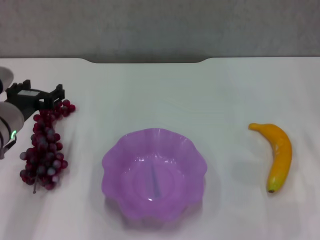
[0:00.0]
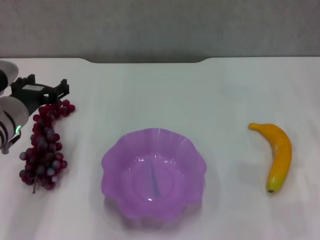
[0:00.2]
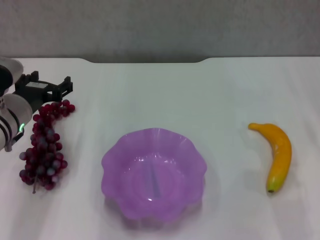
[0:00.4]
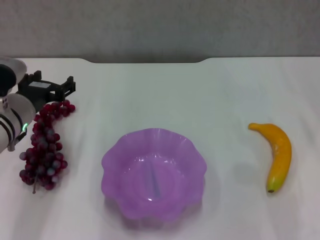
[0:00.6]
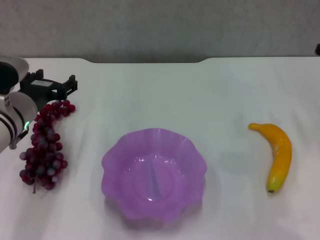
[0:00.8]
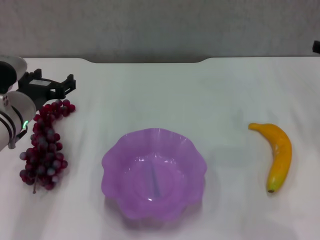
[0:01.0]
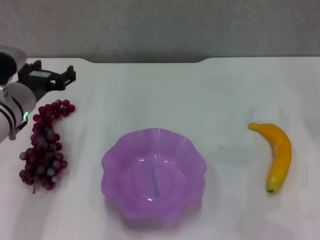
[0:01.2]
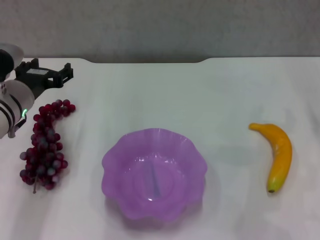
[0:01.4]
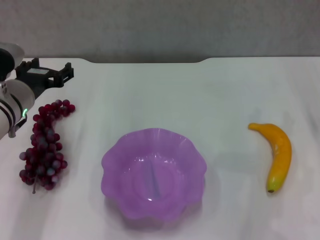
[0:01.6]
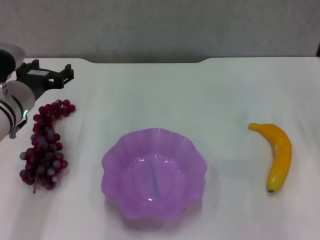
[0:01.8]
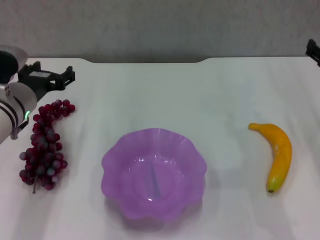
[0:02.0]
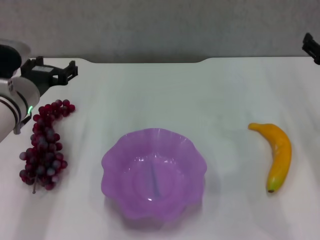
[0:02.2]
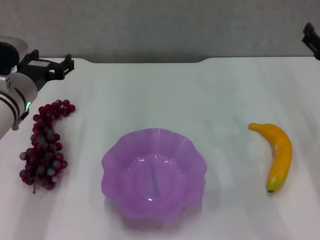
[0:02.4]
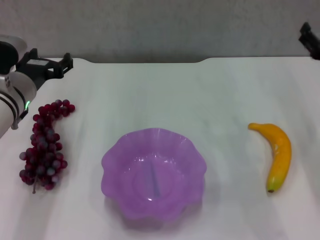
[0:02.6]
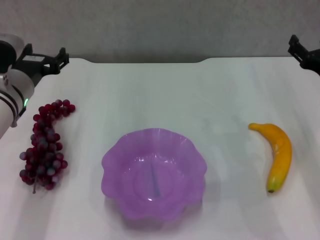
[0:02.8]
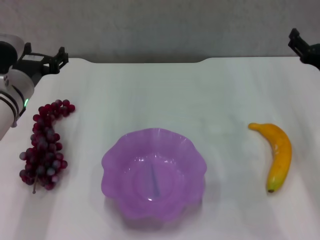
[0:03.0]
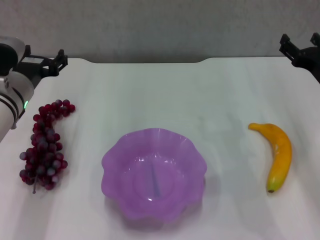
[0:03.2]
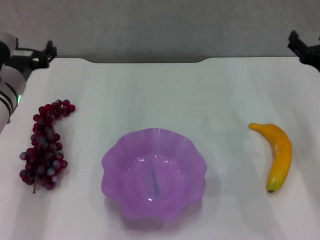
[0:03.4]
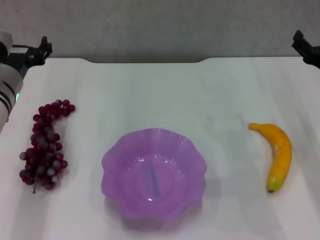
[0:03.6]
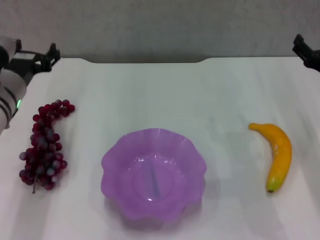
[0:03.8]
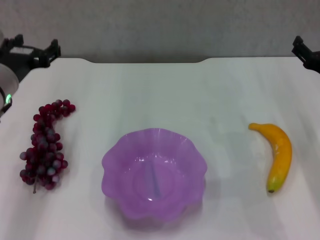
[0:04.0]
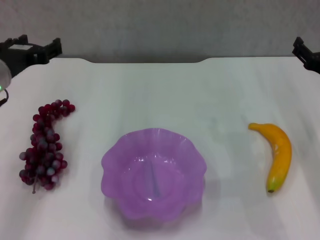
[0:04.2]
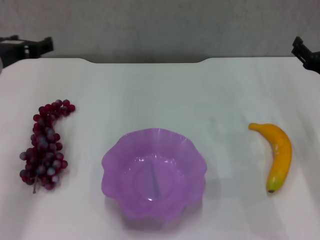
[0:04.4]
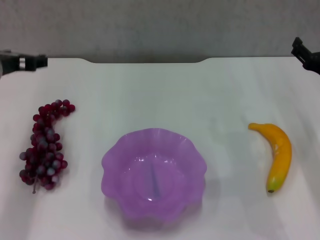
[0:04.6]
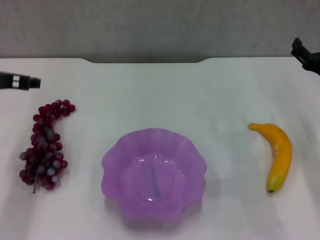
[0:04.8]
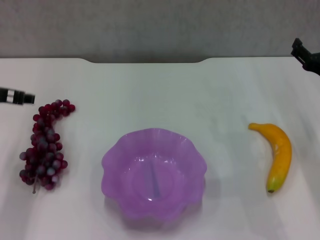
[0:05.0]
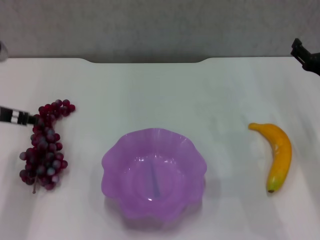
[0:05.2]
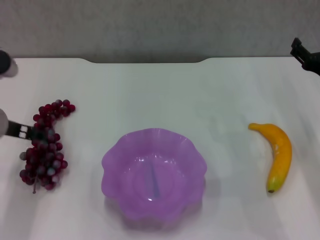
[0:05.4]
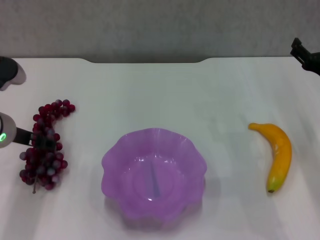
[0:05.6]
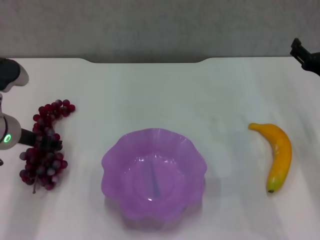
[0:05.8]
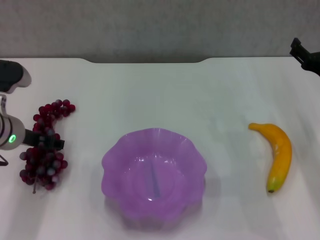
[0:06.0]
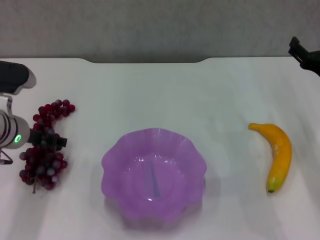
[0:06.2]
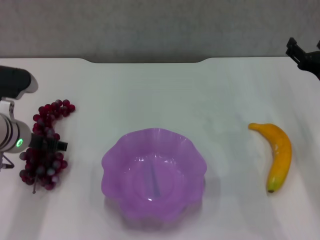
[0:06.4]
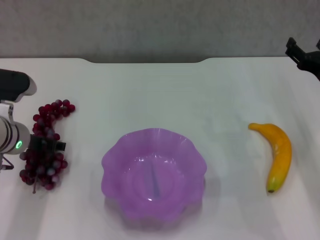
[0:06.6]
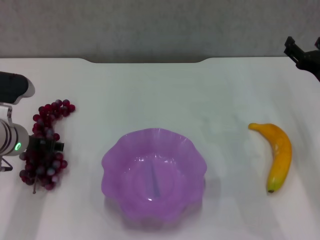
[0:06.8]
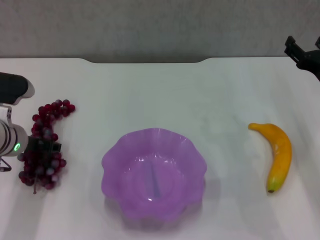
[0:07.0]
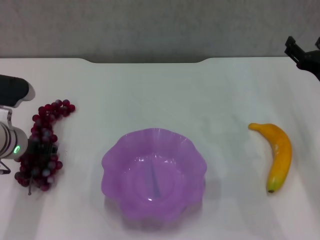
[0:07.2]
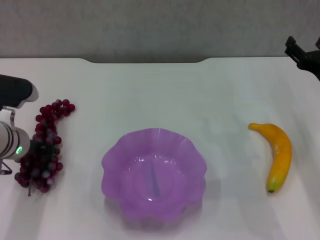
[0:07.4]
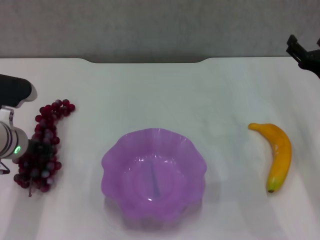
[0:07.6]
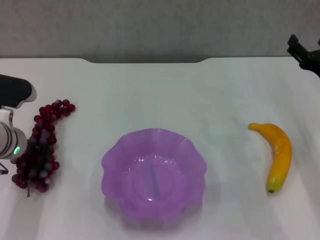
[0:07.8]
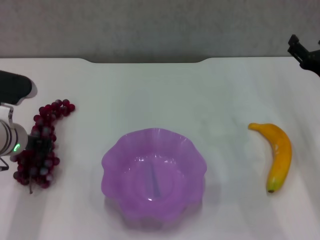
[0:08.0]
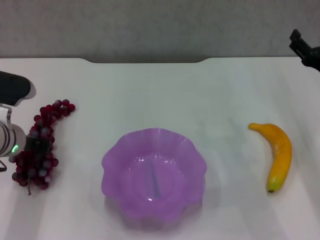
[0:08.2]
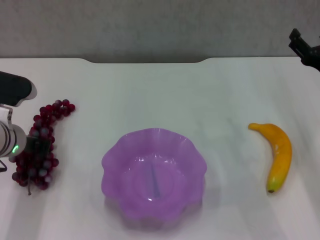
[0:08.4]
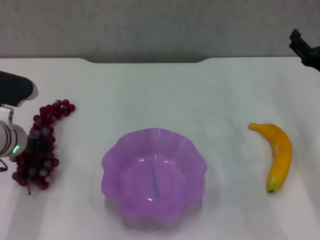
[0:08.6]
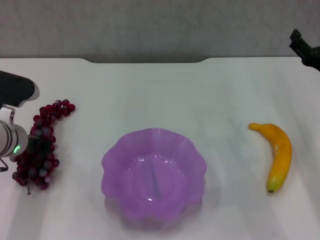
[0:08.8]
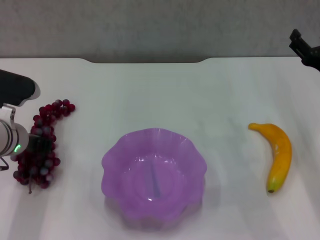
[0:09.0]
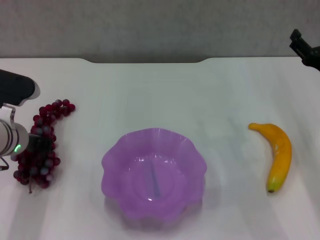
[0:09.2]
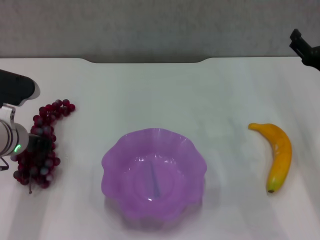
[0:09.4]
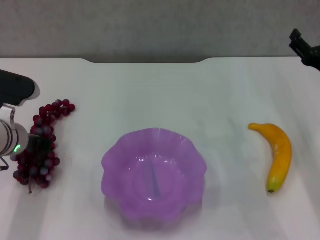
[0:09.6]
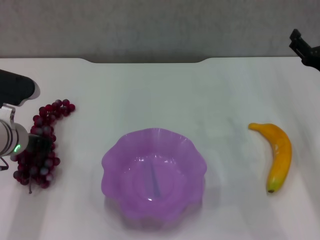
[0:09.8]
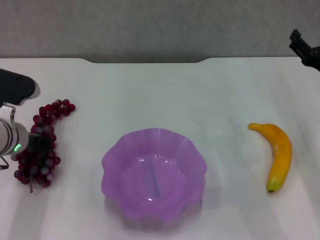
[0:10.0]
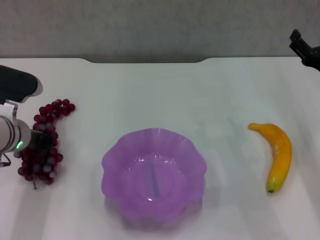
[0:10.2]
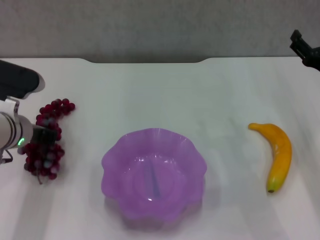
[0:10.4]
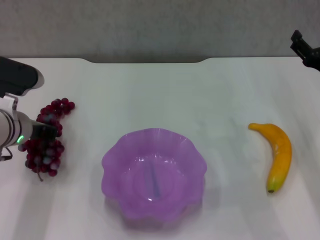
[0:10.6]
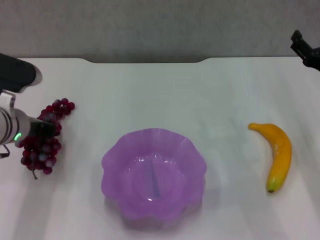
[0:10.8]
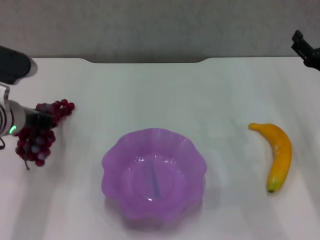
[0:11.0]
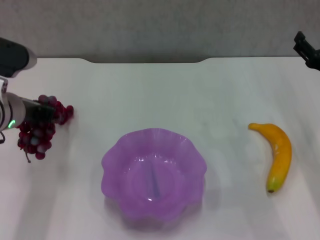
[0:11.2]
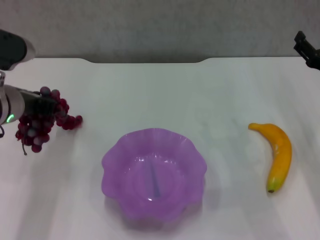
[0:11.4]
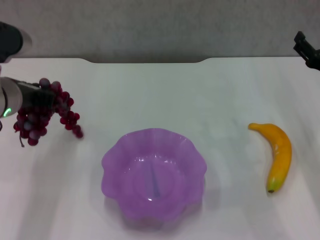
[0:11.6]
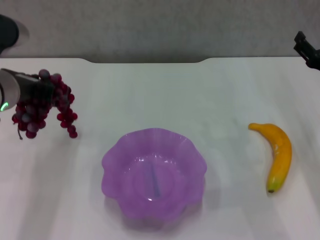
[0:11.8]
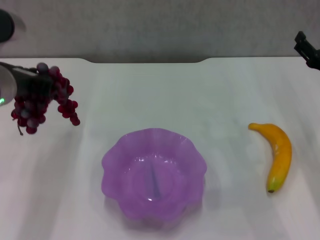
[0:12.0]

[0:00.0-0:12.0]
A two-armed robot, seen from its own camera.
Step, 0:00.0 to 0:09.8: Grasp the grape with left gripper.
0:01.6 to 0:03.0: The right gripper shifts about 5 cm to the left.
0:03.0 to 0:04.4: The left gripper moves upward, some 5 cm.
0:04.4 to 0:06.0: The left gripper travels downward by some 5 cm.
0:06.0 to 0:07.6: The left gripper closes.
0:07.6 to 0:10.4: The grippers make only small movements.
0:10.4 to 0:12.0: The left gripper goes about 10 cm upward.

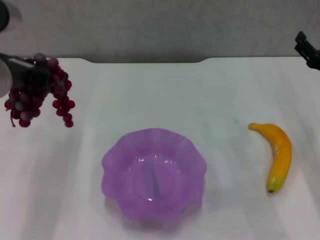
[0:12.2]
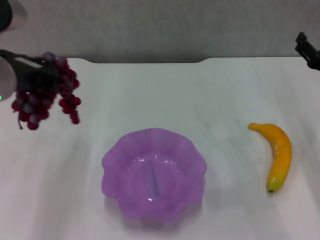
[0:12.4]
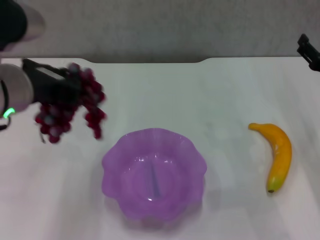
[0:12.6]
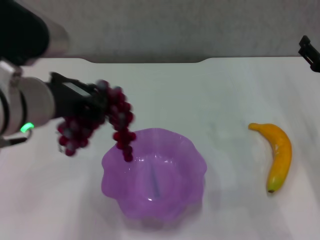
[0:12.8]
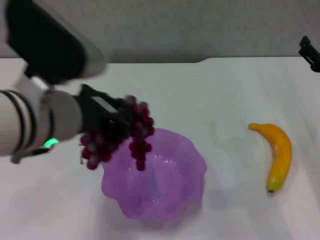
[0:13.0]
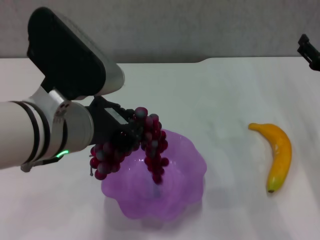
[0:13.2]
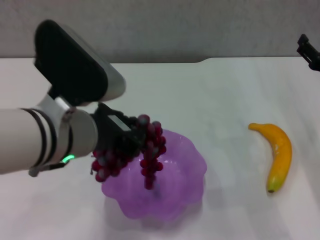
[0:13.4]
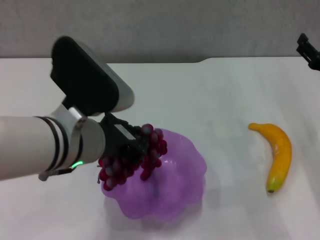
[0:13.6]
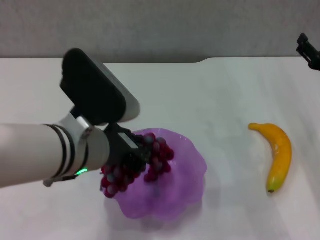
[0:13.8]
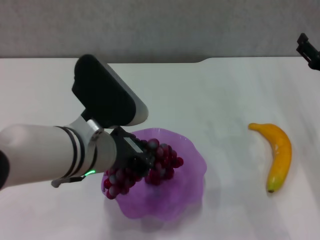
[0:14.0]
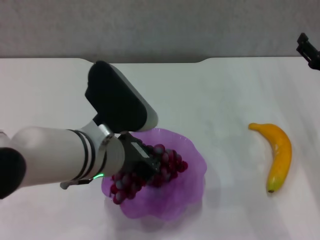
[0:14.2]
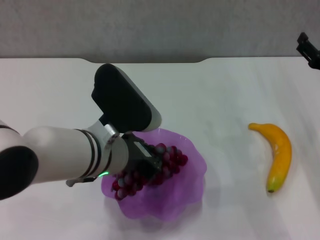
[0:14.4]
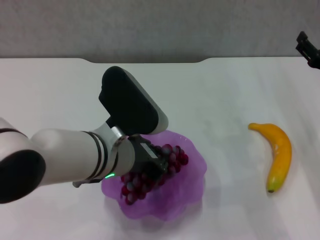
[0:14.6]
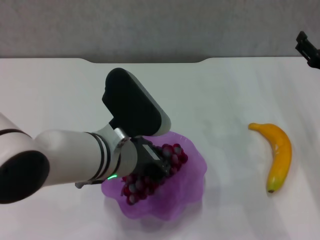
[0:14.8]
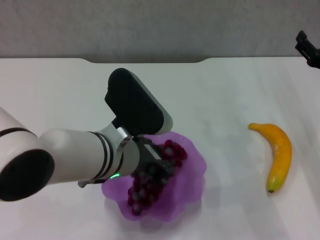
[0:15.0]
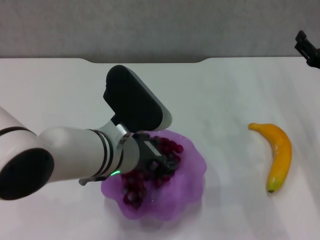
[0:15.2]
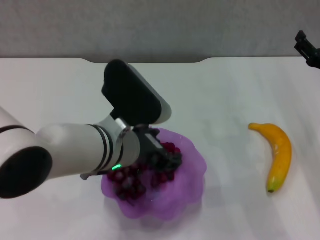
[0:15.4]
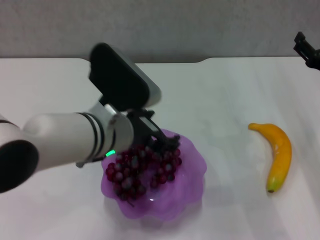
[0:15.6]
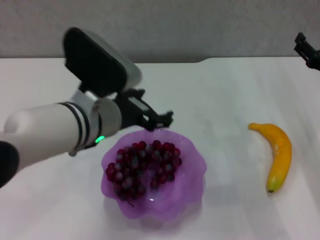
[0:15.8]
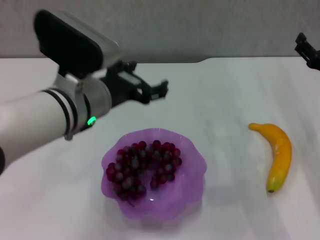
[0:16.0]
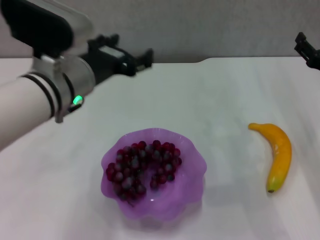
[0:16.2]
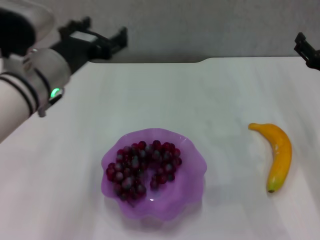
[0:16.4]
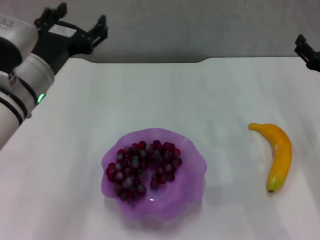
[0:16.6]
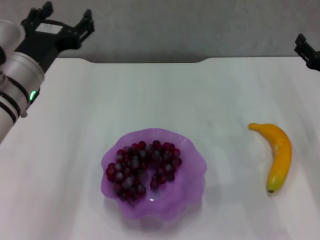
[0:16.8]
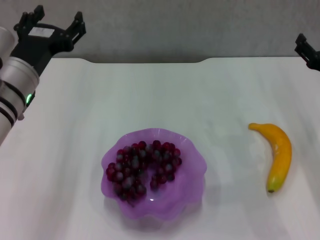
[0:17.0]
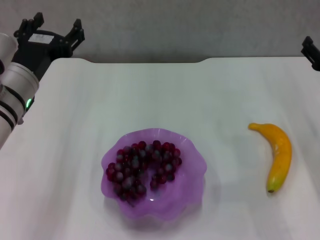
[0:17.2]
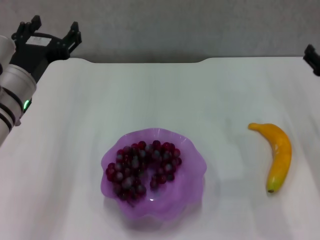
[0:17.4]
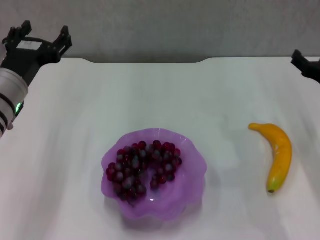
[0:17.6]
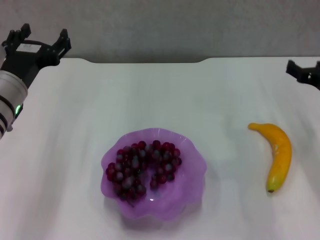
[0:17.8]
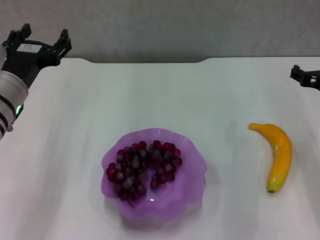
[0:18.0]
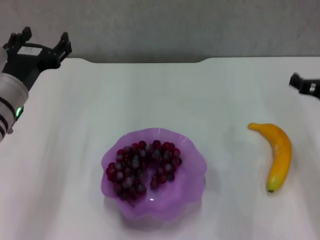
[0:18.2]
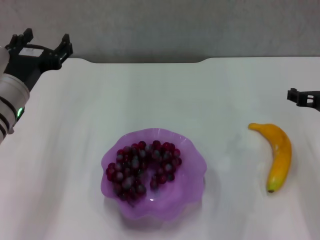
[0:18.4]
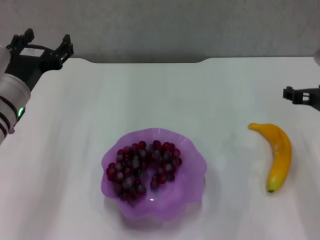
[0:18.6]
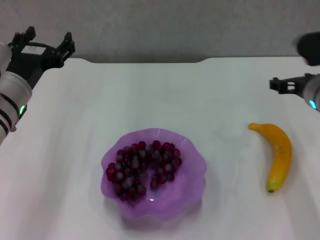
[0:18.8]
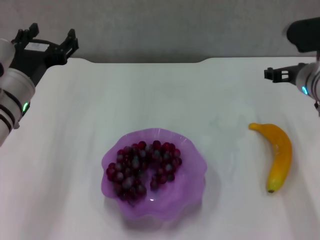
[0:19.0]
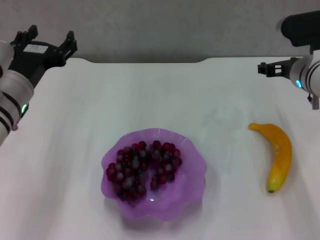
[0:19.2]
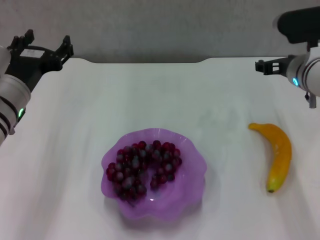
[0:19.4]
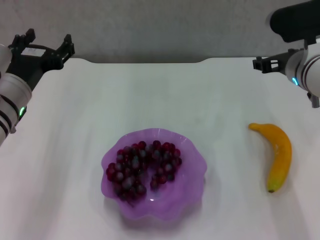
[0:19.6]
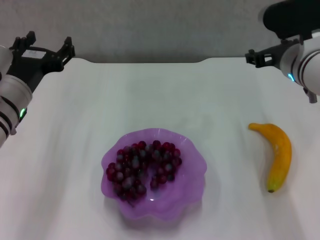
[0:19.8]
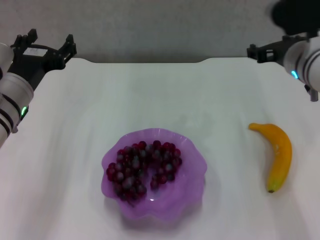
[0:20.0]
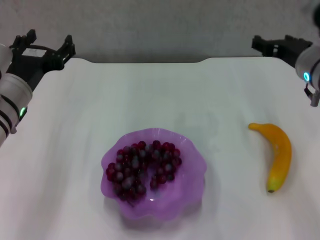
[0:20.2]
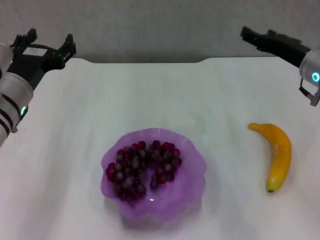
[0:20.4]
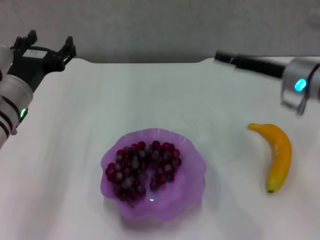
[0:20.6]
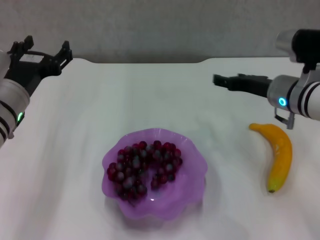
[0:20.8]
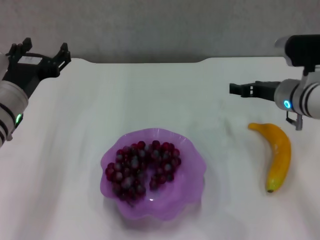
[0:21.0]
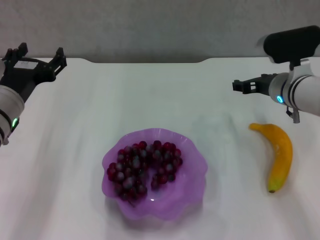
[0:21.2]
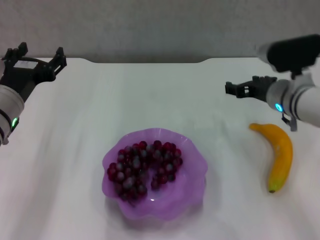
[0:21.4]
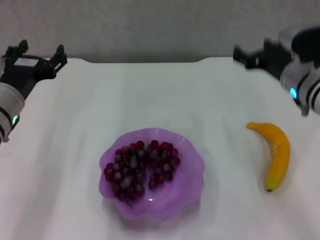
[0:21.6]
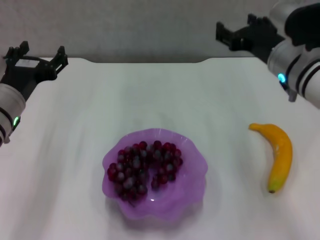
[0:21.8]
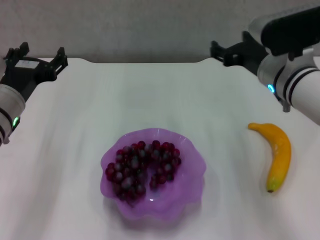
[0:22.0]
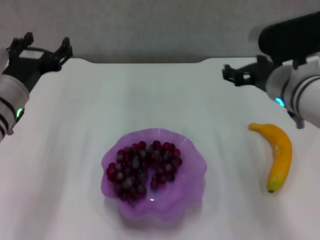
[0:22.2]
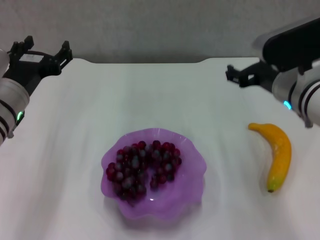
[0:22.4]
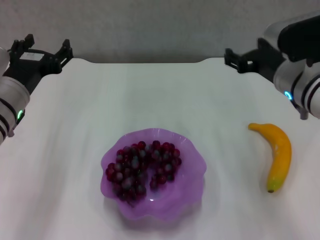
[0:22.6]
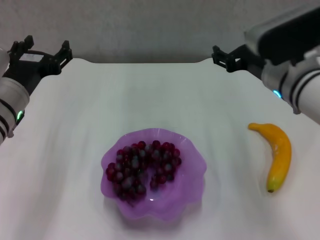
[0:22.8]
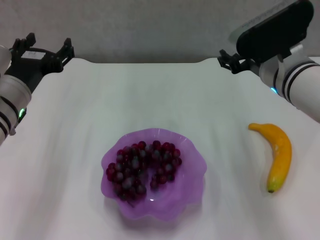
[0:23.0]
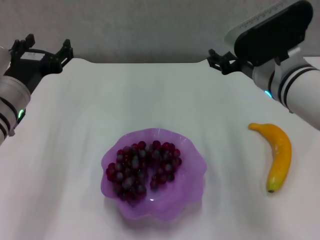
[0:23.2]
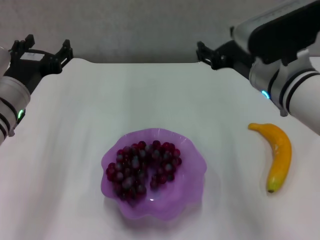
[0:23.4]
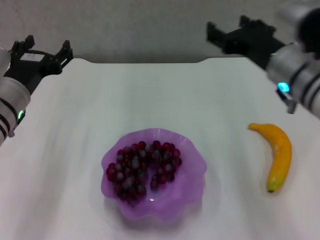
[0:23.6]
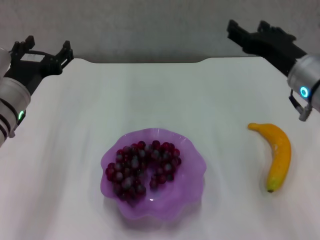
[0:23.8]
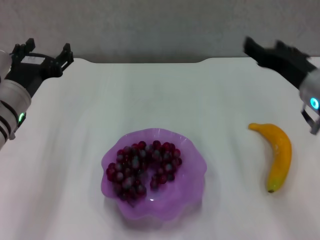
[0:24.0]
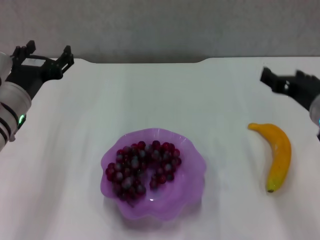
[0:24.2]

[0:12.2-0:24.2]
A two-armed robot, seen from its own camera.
Step, 0:12.2 to 0:15.6: Place the grape in the purple plate with left gripper.
0:12.2 to 0:13.8: The left gripper moves to the right and downward, approximately 10 cm.
0:13.8 to 0:15.2: The left gripper changes place by approximately 5 cm.
0:15.2 to 0:16.6: The left gripper shifts roughly 10 cm to the left, and opens.
0:16.6 to 0:18.2: The left gripper changes place by approximately 5 cm.
0:18.2 to 0:19.8: The right gripper moves to the left and upward, approximately 10 cm.
0:19.8 to 0:21.2: The right gripper shifts some 5 cm downward.
0:21.2 to 0:22.6: The right gripper is displaced backward and upward by roughly 10 cm.
0:22.6 to 0:24.2: The right gripper changes place by some 5 cm.
